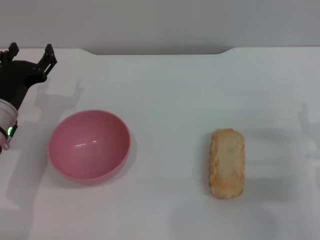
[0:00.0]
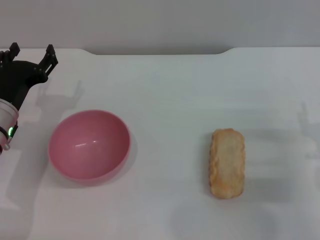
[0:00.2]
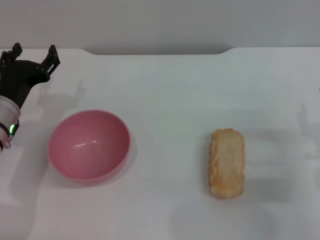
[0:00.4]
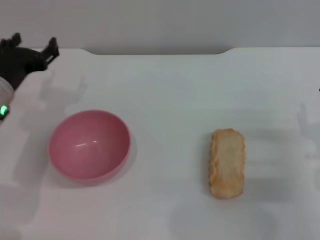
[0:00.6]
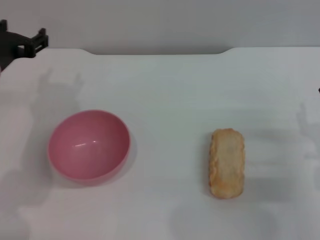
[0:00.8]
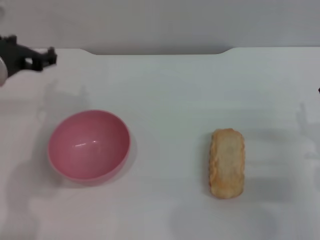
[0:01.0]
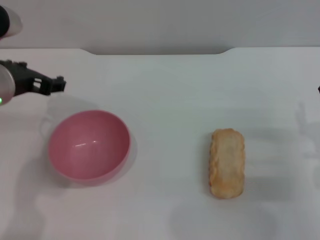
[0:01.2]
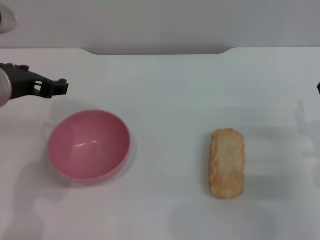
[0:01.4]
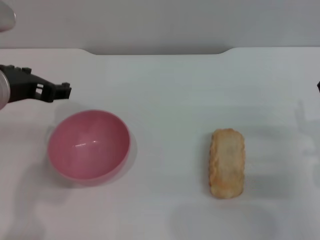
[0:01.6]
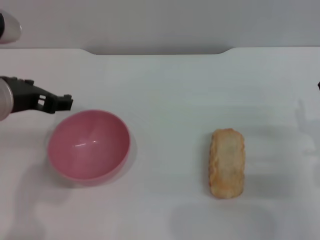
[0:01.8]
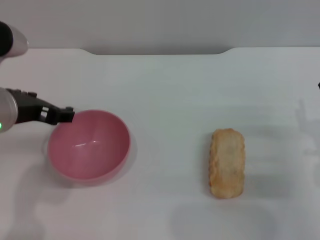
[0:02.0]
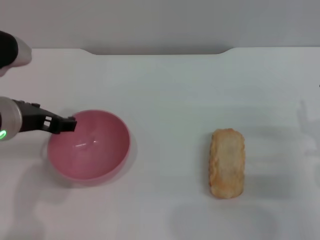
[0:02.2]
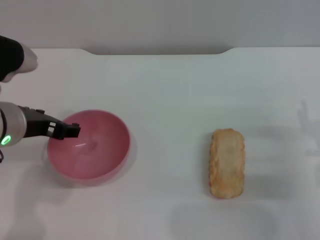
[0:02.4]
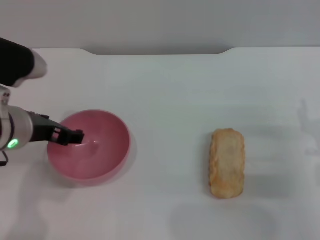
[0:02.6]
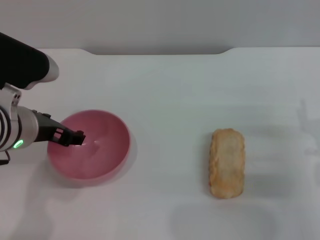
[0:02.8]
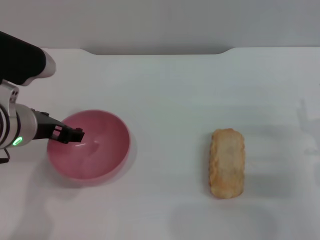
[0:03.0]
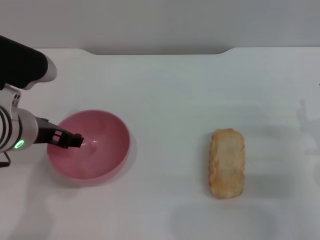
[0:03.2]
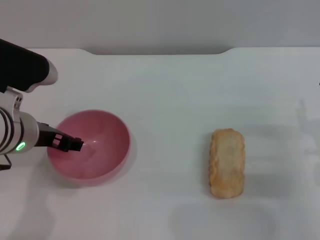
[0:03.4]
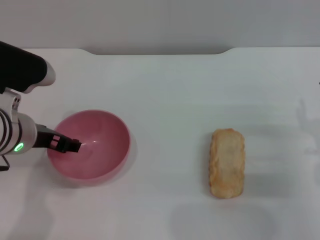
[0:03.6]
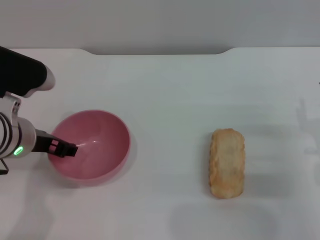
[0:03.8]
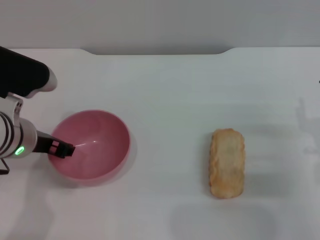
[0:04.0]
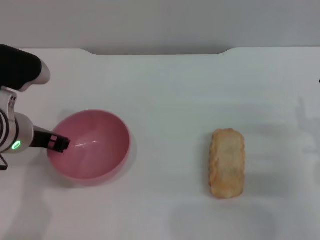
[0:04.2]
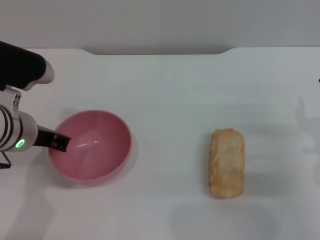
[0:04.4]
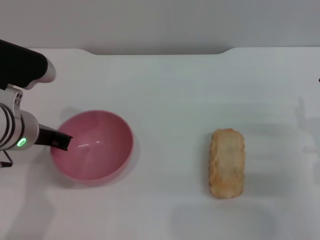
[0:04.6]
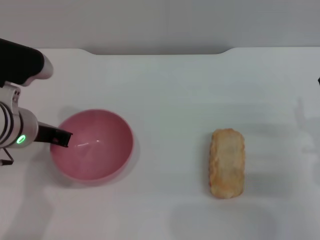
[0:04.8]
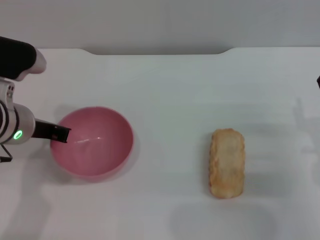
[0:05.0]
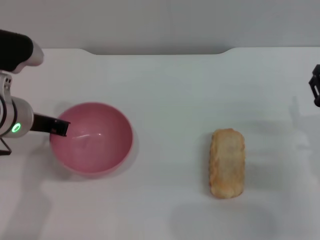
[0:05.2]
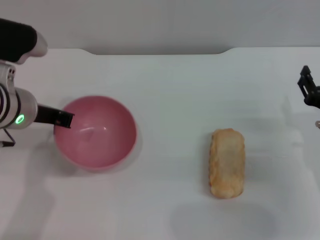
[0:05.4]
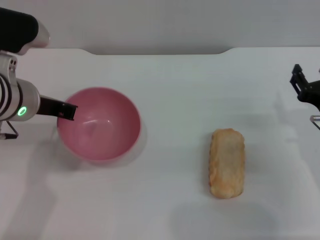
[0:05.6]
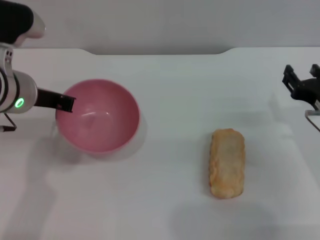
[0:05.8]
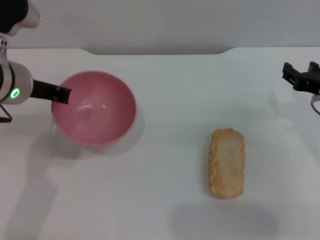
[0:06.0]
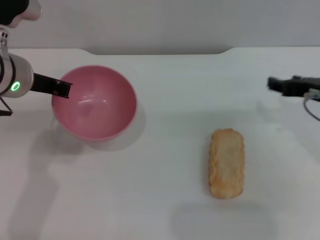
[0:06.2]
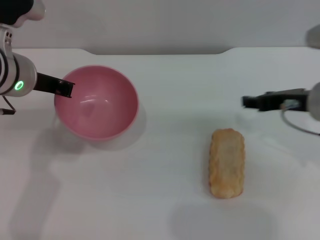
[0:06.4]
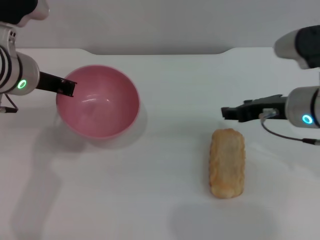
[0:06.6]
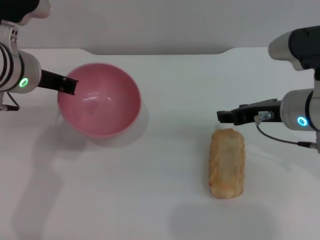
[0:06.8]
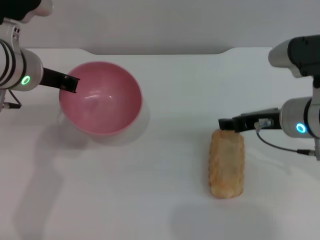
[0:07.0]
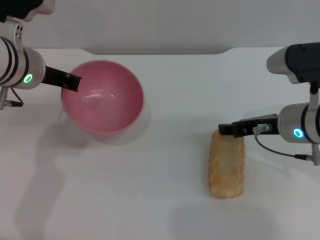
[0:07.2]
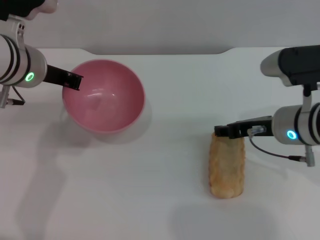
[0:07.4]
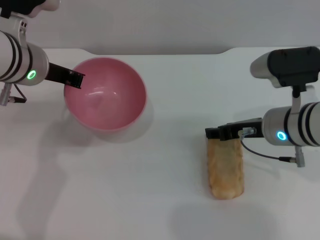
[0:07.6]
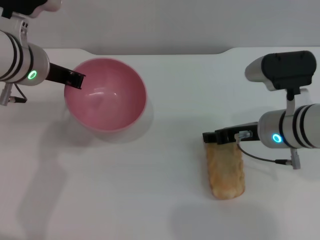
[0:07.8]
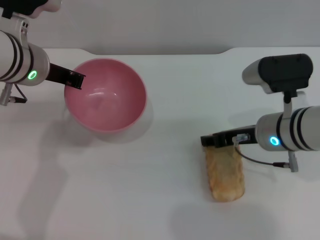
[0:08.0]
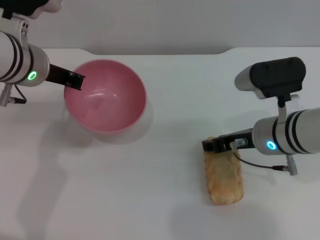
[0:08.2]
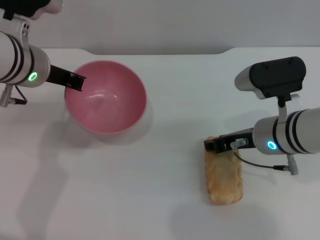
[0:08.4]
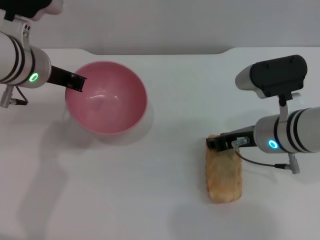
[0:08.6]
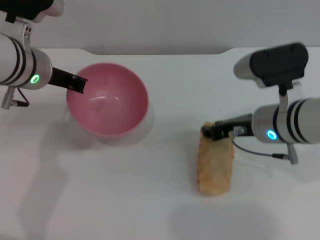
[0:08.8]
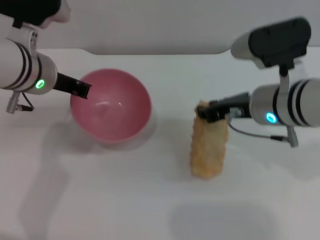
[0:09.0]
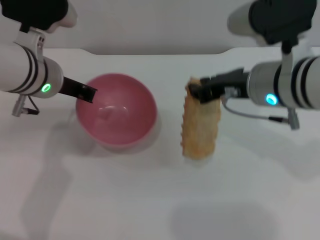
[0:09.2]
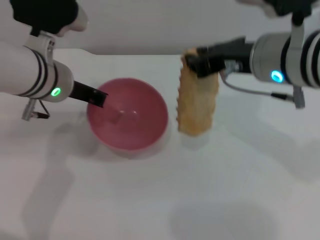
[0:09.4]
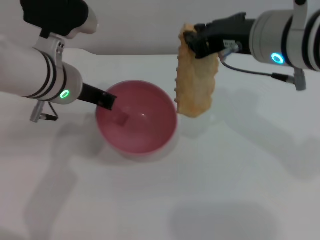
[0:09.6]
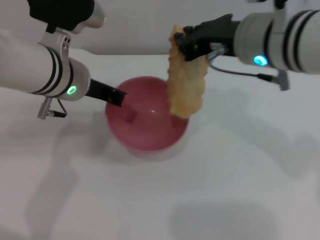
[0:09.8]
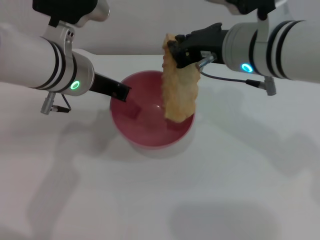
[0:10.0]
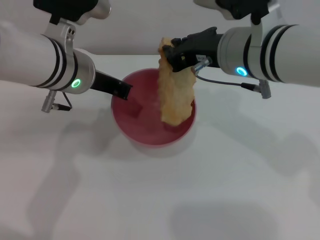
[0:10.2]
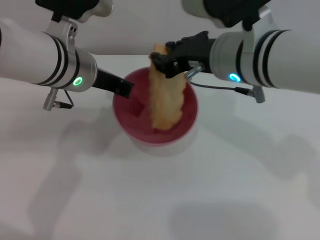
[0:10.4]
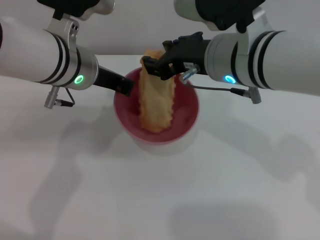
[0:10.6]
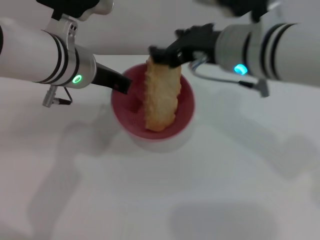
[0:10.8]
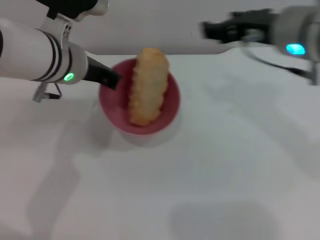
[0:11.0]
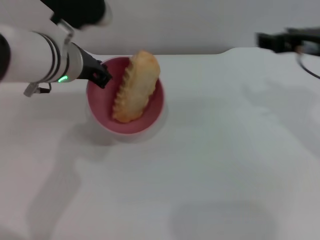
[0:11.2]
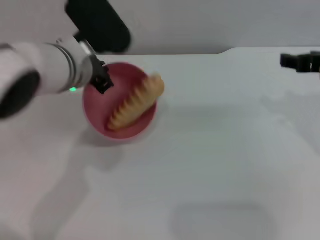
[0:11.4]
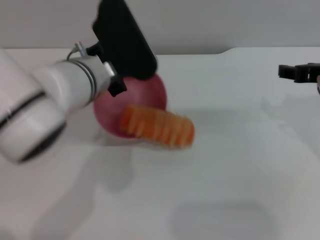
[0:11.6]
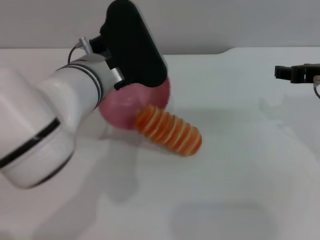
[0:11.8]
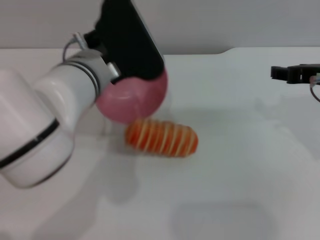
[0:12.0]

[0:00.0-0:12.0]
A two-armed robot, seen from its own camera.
Task of the whole recording: put the bread into the pink bowl and pour it out repeatedly.
Step, 0.0 to 5.8 s: Pick up the bowl with the left gripper.
Step, 6.0 to 9.0 s: Pick up the bread with the right gripper.
Step, 9.4 to 10.8 s: Place the bread into the bowl.
0.0 to 1.6 s: The left gripper goes roughly 15 cm upward.
1.6 to 3.0 s: The left gripper is displaced downward by approximately 5 cm.
3.0 to 4.4 s: The left gripper closes up.
4.4 to 6.0 s: The right gripper is displaced upward and forward by approximately 10 cm; the left gripper changes place by roughly 5 cm, and closes its fingers.
6.0 to 7.6 s: The right gripper goes some 10 cm to the left.
7.6 to 9.0 s: The right gripper closes.
9.0 to 10.4 s: The right gripper travels upward and to the left by approximately 10 cm; the left gripper shifts by some 5 cm.
10.4 to 12.0 s: The right gripper moves to the right, roughly 15 cm, and opens its fingers. The left gripper shifts by about 5 cm.

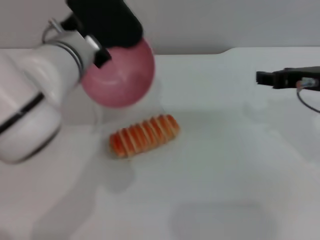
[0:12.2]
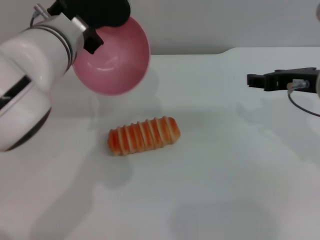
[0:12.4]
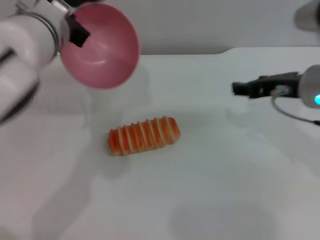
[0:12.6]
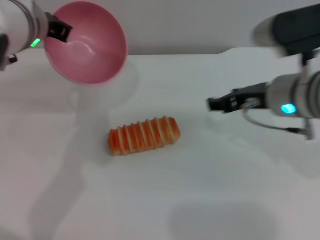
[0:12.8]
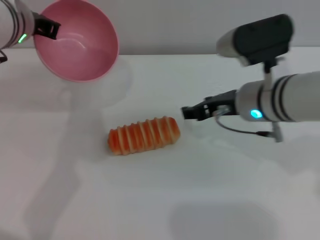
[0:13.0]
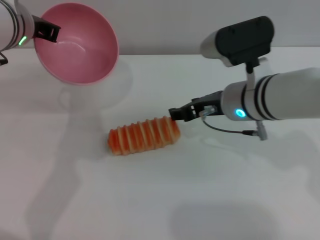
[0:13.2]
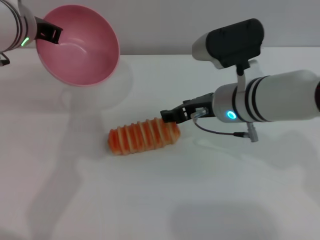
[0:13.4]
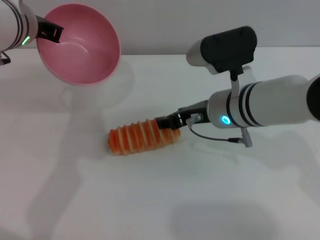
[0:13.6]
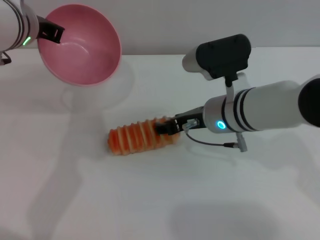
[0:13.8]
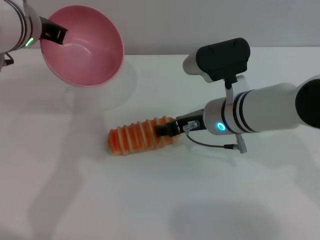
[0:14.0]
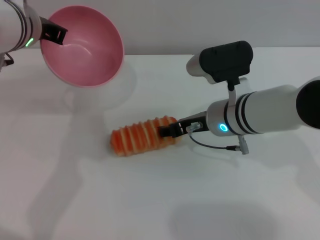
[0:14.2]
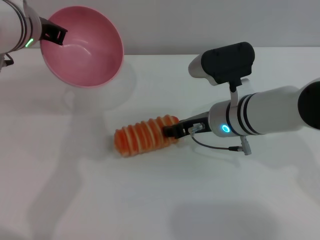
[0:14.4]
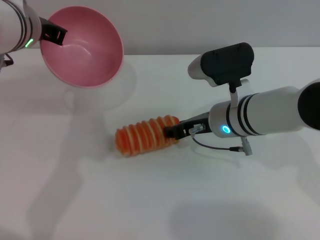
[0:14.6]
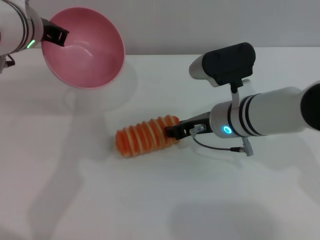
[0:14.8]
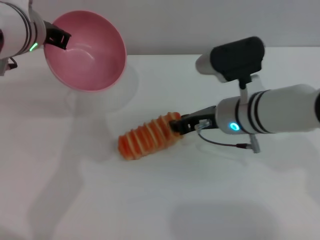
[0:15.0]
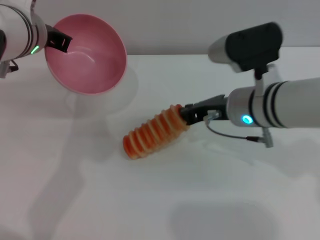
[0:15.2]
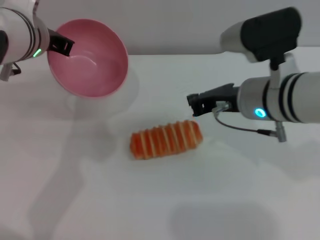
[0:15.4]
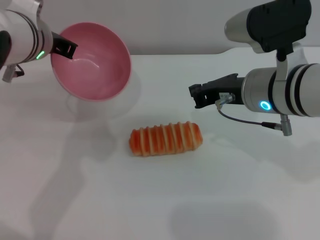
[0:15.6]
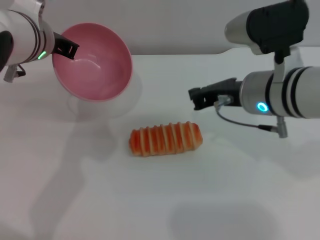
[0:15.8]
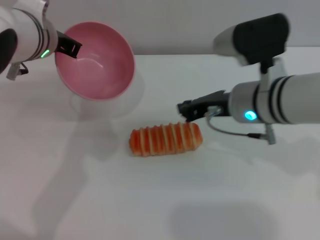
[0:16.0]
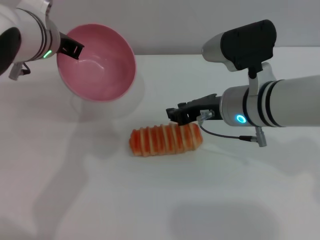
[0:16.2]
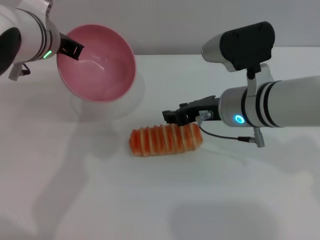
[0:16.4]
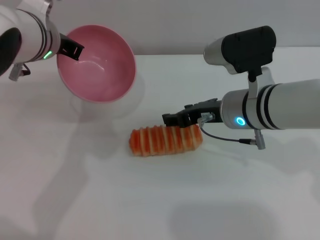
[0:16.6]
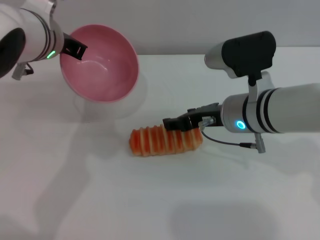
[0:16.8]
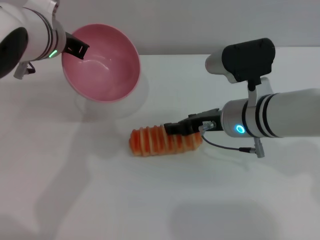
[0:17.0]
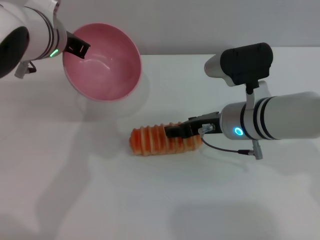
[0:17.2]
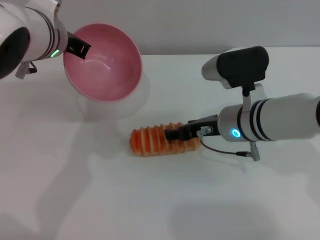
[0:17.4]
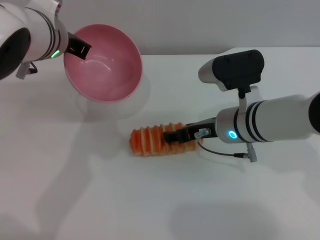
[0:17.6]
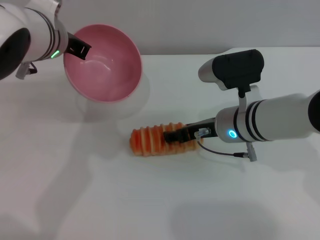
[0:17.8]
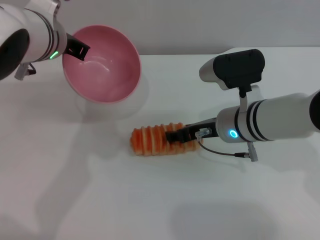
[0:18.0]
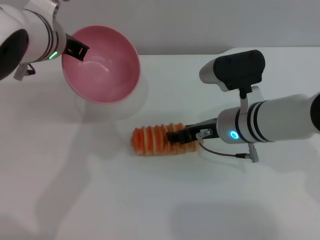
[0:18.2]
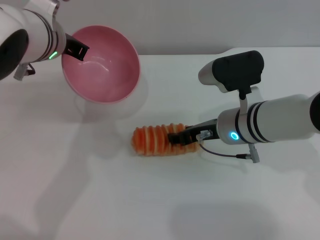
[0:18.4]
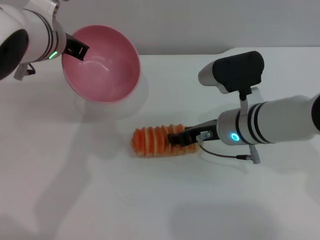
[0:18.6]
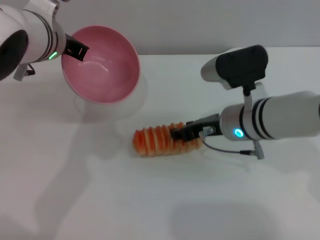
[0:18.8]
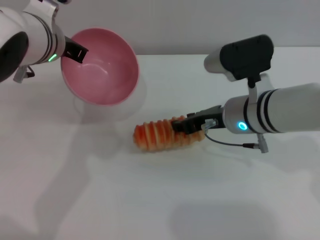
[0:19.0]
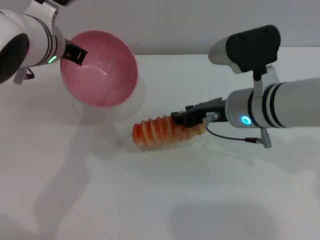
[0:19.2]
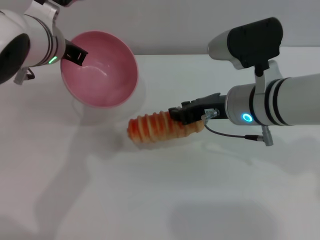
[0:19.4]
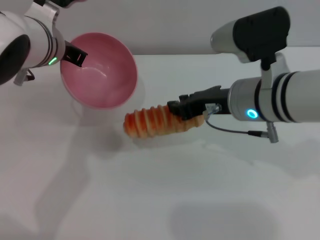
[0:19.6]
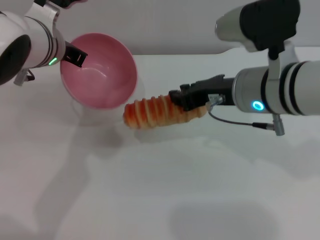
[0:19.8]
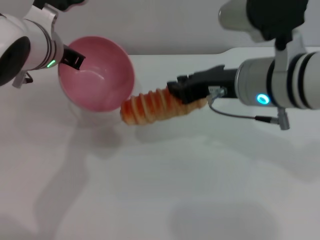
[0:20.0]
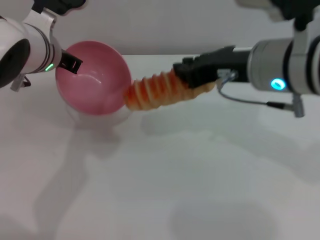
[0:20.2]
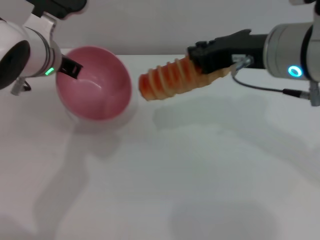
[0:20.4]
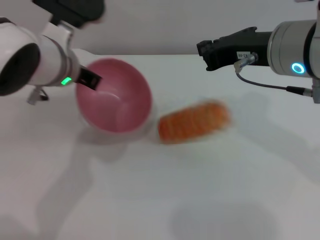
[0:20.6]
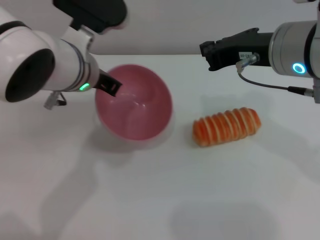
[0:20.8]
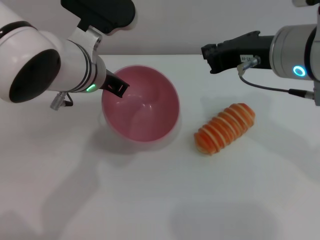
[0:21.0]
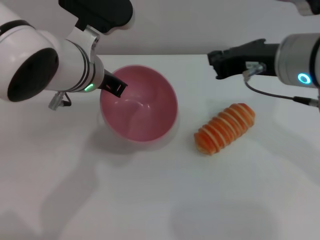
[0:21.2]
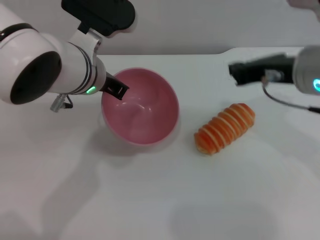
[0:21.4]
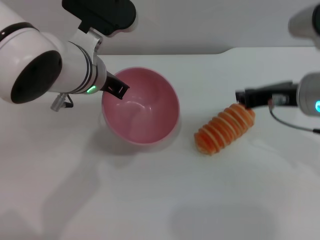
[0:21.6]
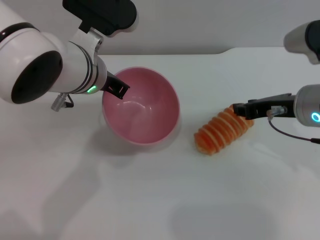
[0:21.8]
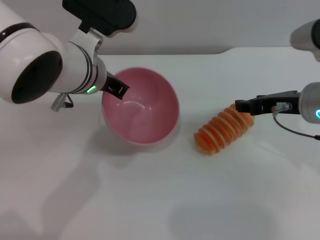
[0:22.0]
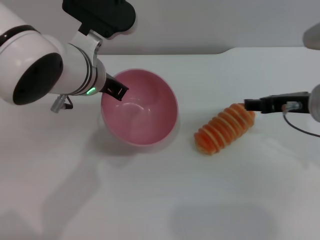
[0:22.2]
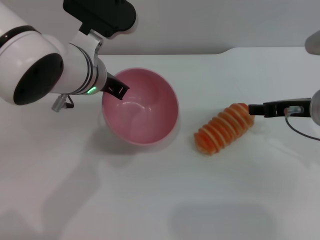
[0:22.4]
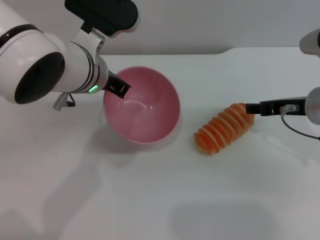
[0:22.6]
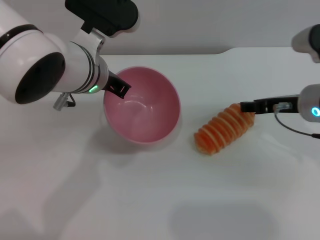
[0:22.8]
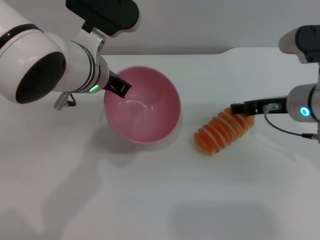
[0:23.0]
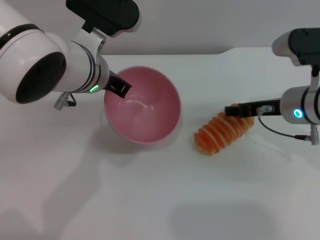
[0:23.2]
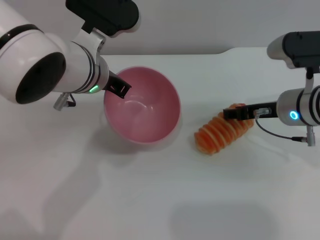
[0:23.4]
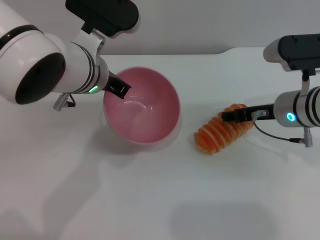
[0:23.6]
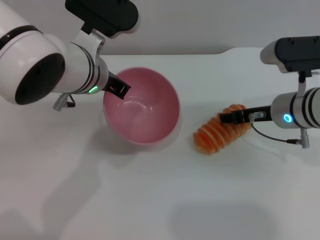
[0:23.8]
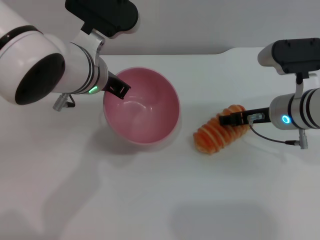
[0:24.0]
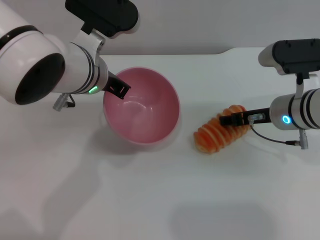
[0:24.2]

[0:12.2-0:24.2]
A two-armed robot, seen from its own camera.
Task of the whole recording: put the bread into the pink bowl and pour it out repeatedly.
12.2 to 13.8 s: The right gripper moves to the left and downward, about 15 cm. The left gripper heads to the left, covering approximately 5 cm.
13.8 to 15.2 s: The right gripper closes its fingers.
15.2 to 16.6 s: The right gripper closes and opens again.
16.6 to 18.2 s: The grippers move only a little.
18.2 to 19.8 s: The right gripper moves upward, some 10 cm, and closes.
19.8 to 21.2 s: The right gripper ends up some 5 cm from where it was, and closes its fingers; the left gripper moves some 5 cm.
21.2 to 22.6 s: The right gripper is displaced downward and to the right by about 10 cm, and opens.
22.6 to 24.2 s: The right gripper moves roughly 5 cm.
